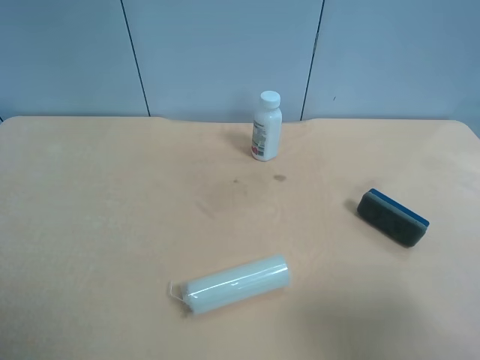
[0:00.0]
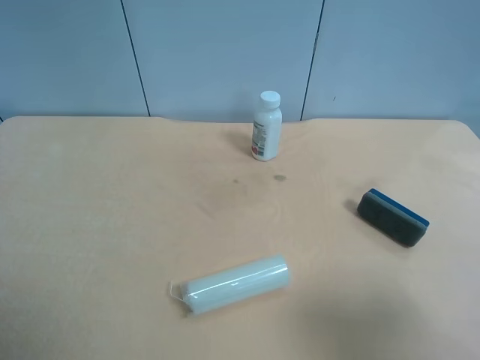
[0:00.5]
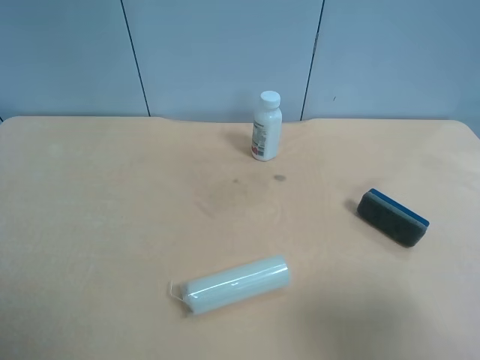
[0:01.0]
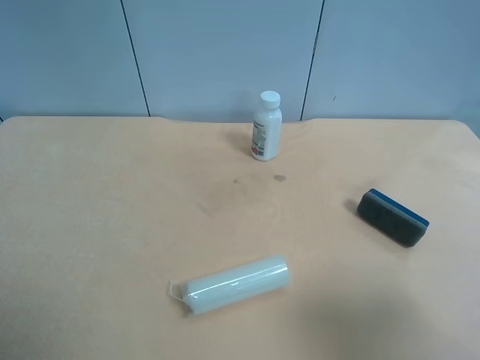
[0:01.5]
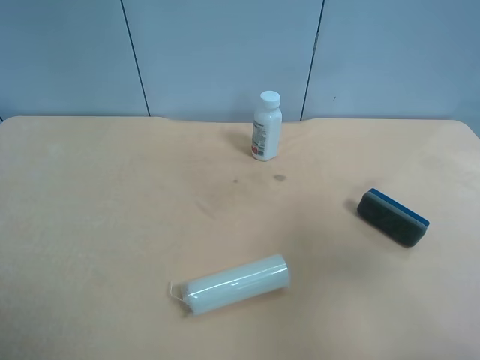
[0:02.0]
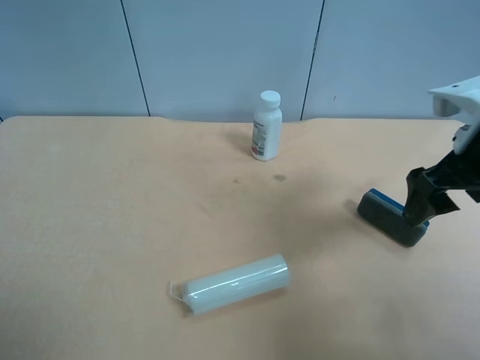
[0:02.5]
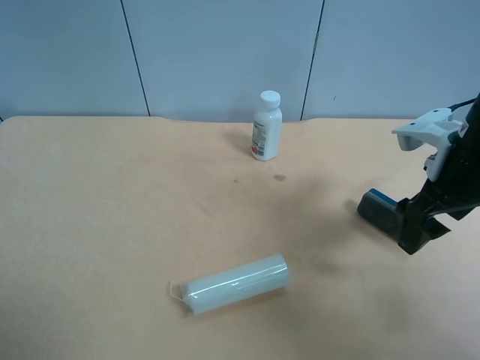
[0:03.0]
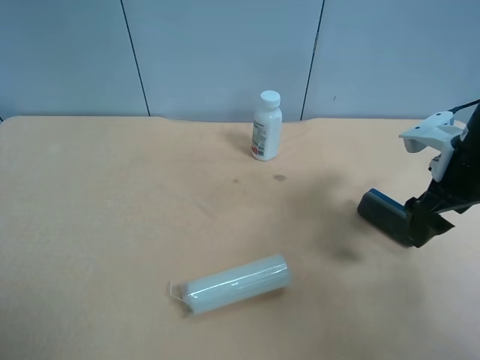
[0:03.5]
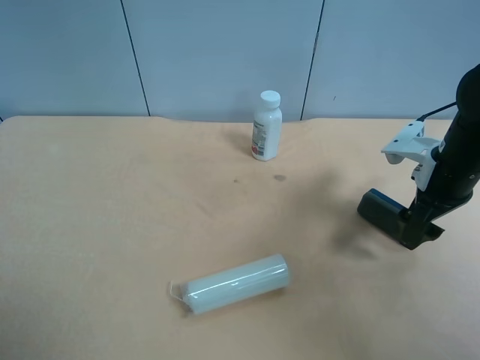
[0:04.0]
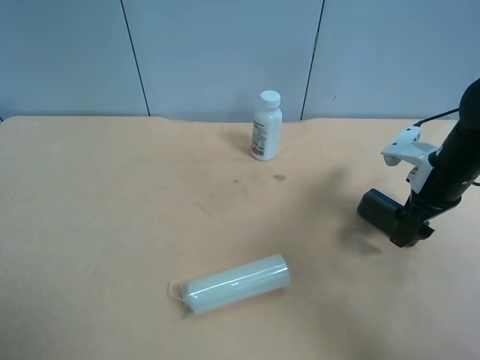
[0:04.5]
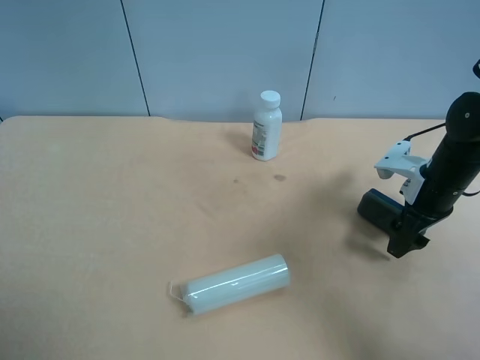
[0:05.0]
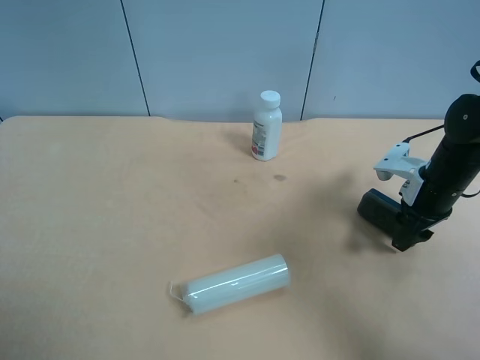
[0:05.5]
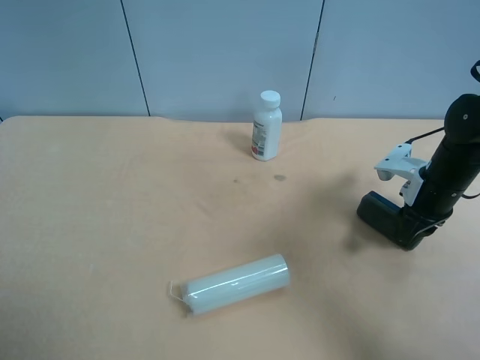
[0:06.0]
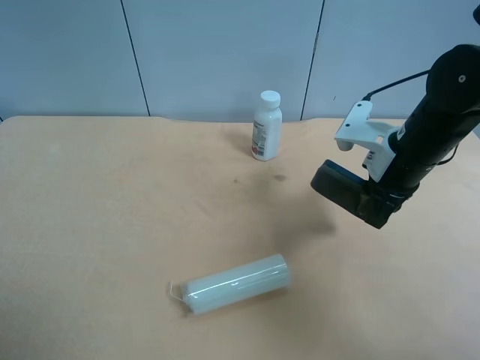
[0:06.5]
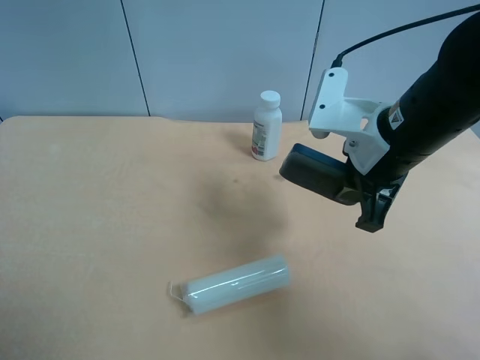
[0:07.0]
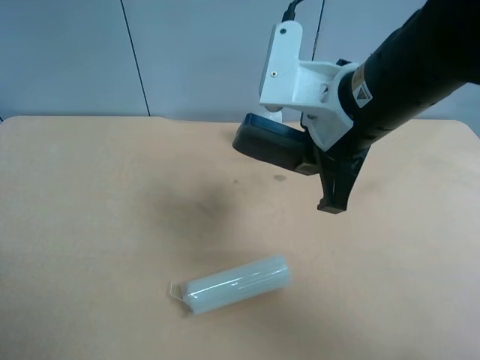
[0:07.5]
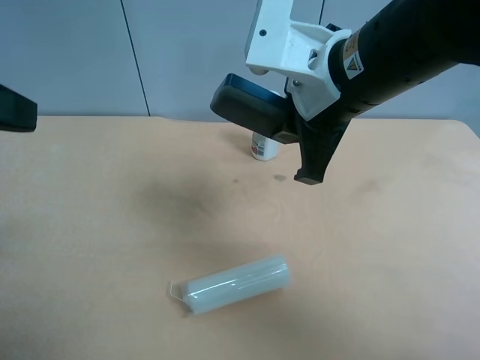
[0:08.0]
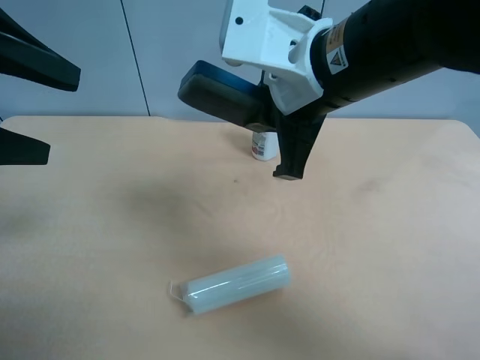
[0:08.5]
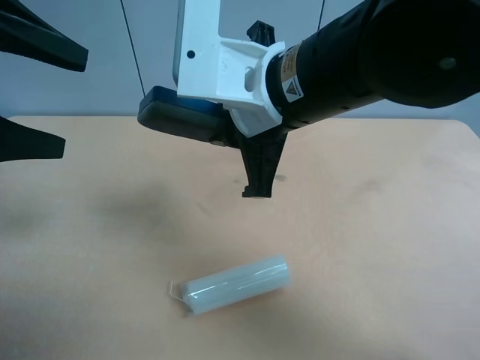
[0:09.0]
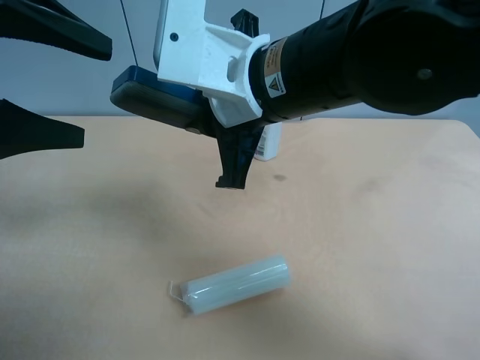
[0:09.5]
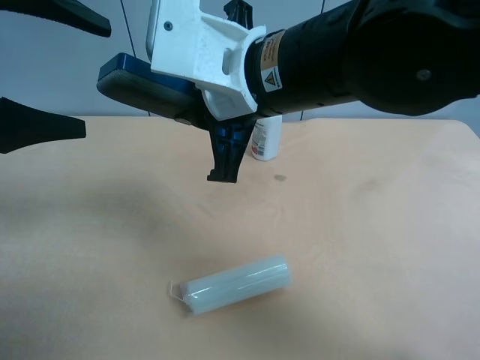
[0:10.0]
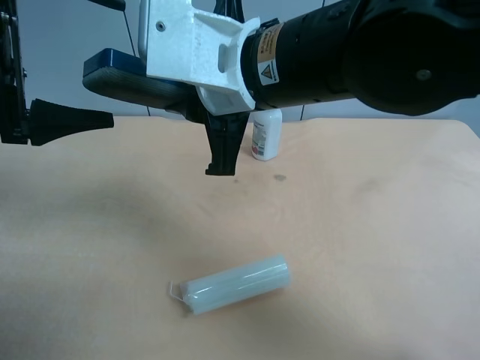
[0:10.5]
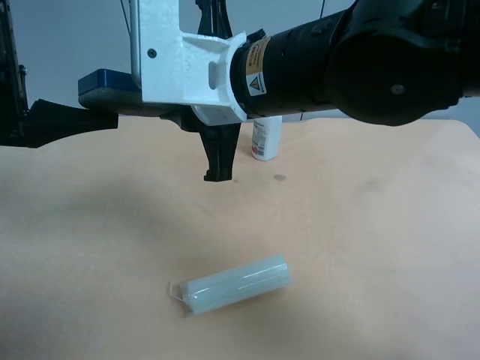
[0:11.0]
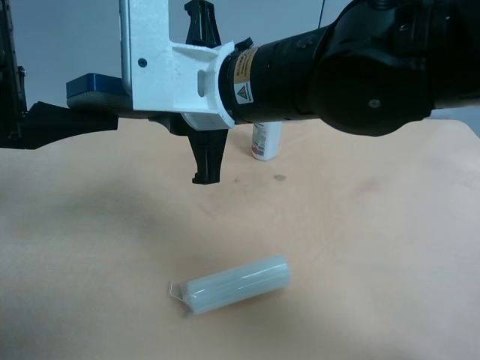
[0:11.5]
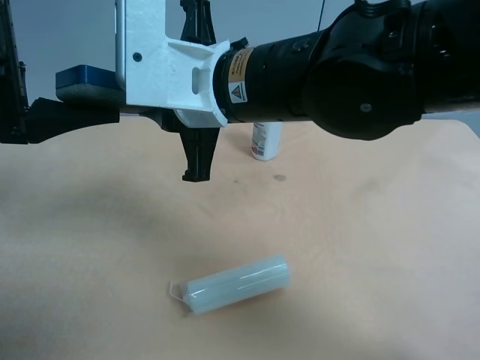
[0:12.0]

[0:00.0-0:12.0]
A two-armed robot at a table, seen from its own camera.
Task of the whole recording: use the right gripper to pick up the item and transfer it from the right gripper to the left gripper.
0:00.0 to 0:02.0: The right gripper is displaced forward by roughly 10 cm.
0:02.0 to 0:04.0: The right gripper goes approximately 25 cm downward and forward.
0:04.0 to 0:06.0: The right gripper ends up some 5 cm from where it was, and closes.
0:06.0 to 0:08.0: The left gripper is displaced forward and upward by about 15 cm, while the right gripper heads to the left and upward, covering about 25 cm.
0:08.0 to 0:10.0: The left gripper is displaced forward by approximately 5 cm. Meanwhile the right gripper travels to the left by roughly 5 cm.

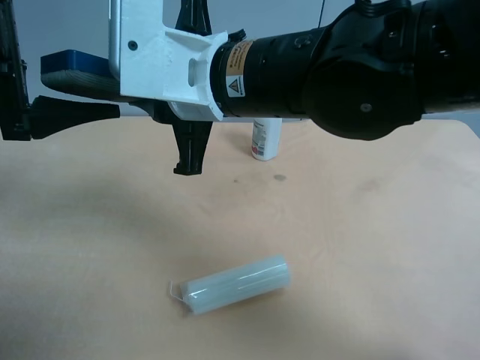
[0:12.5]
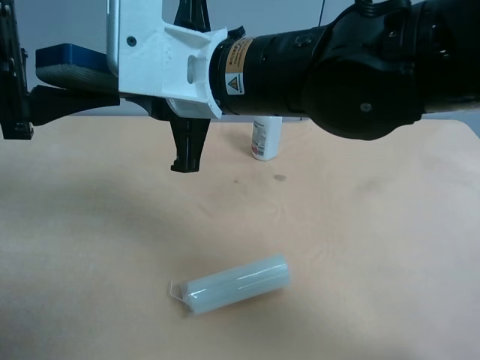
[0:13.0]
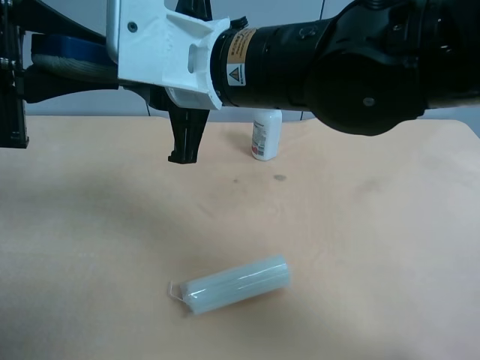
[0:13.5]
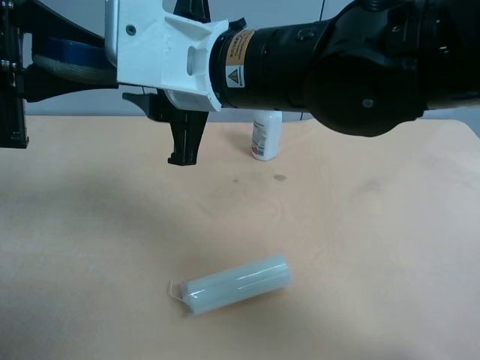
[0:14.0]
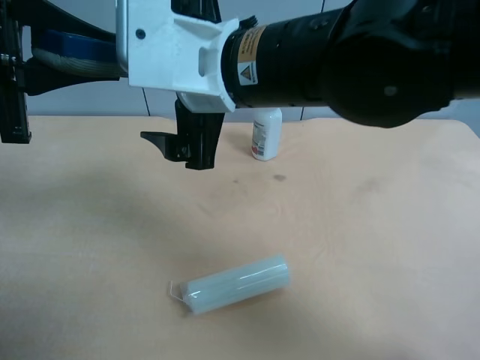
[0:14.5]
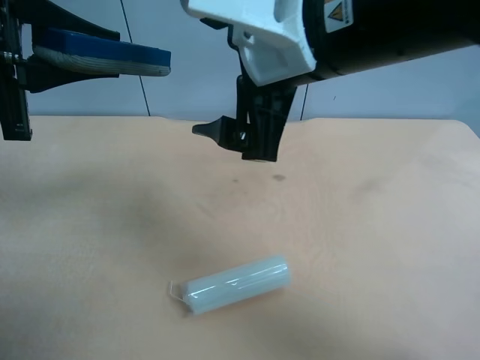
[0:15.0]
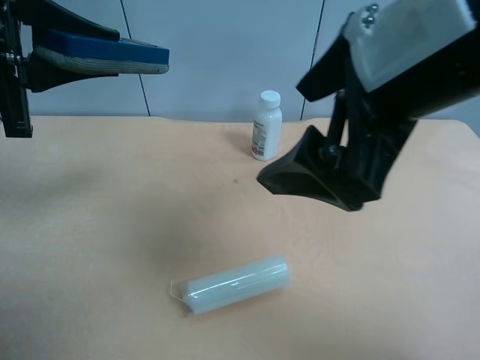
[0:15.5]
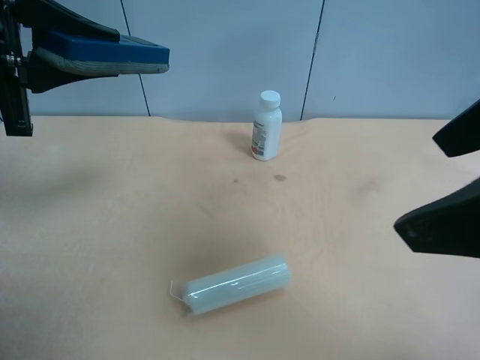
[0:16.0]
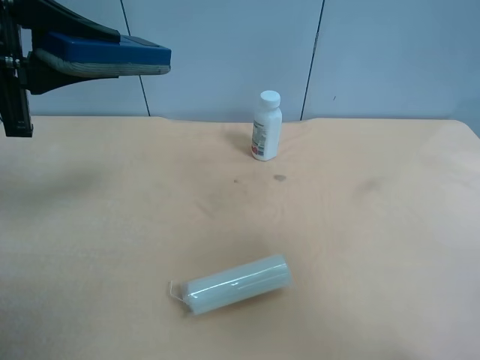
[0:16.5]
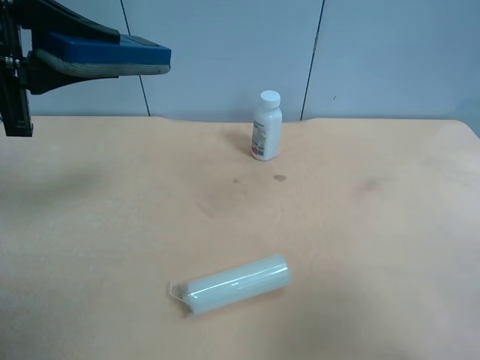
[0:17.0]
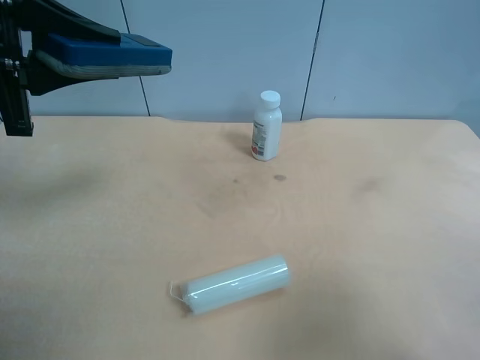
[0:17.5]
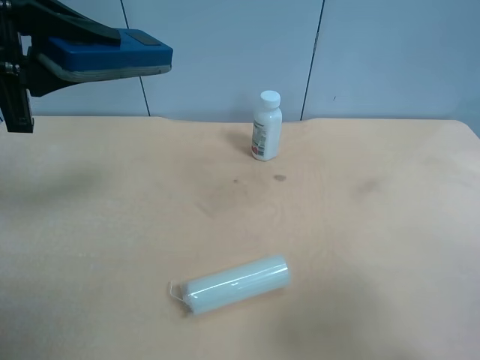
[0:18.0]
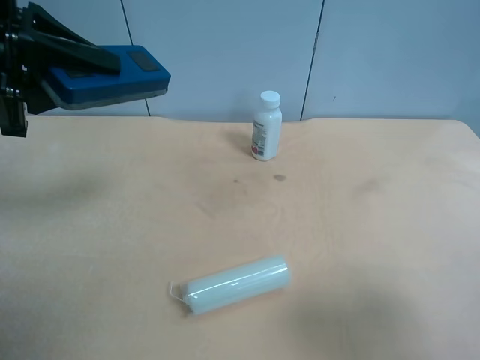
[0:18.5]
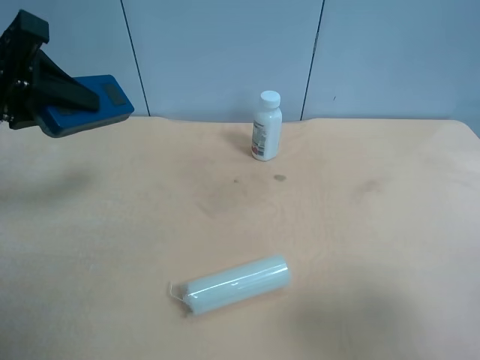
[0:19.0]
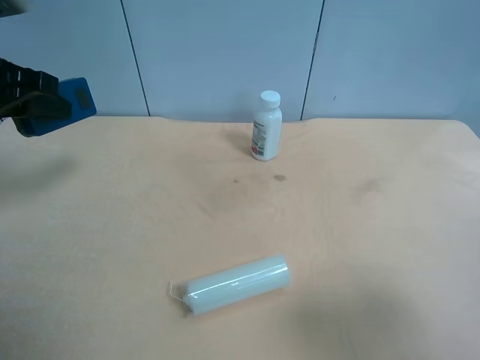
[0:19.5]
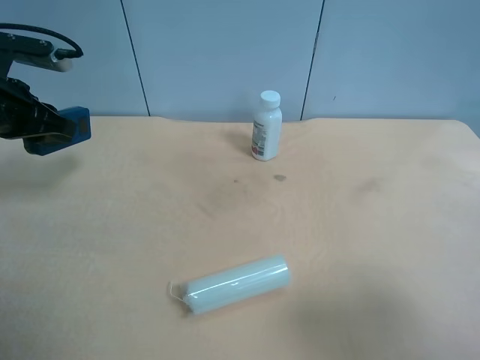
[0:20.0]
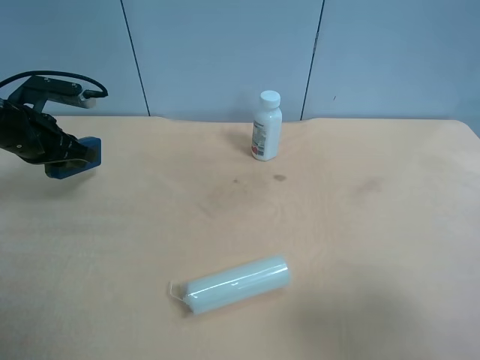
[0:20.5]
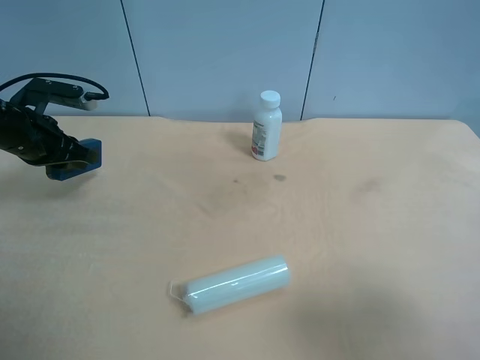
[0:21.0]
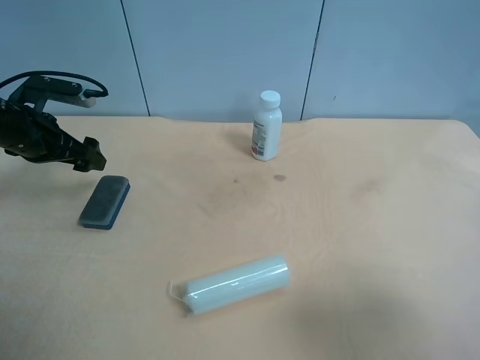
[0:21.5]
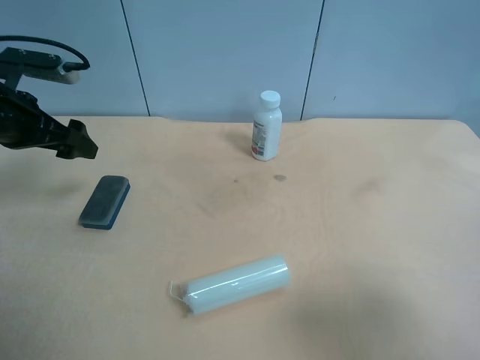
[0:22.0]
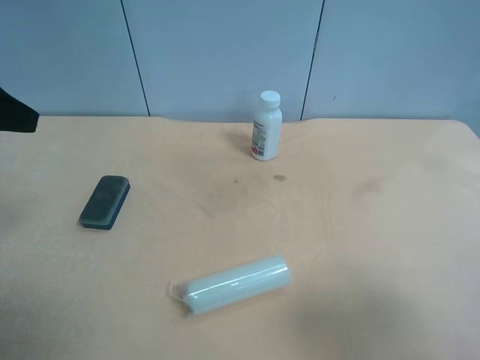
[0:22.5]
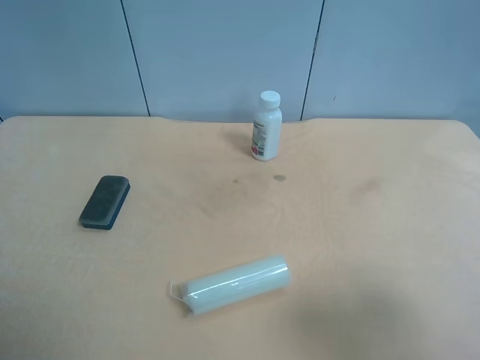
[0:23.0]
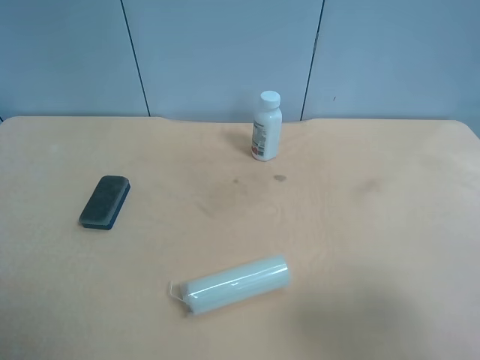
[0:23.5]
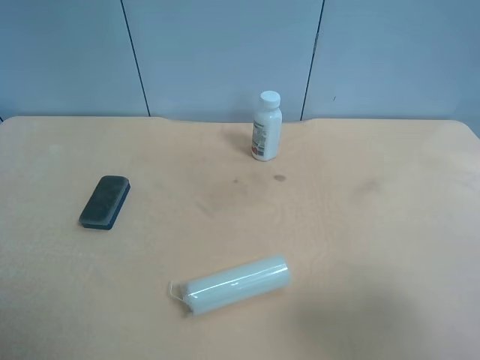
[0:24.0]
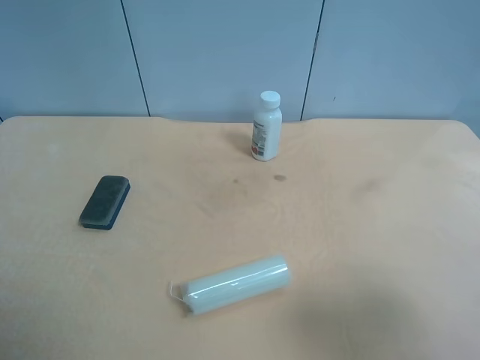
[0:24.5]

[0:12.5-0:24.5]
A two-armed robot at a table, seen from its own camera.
Task of the whole recording: use the right gripper to pick up the item and transfer it from the right gripper to the left gripper.
0:12.5 to 0:14.5: The right gripper opens. The left gripper closes up.
0:14.5 to 0:16.5: The right gripper shifts some 30 cm to the right and backward.
0:16.5 to 0:18.5: The right gripper shifts approximately 10 cm downward.
0:18.5 to 0:20.5: The left gripper is displaced downward, forward and to the left by approximately 20 cm.
0:20.5 to 0:22.5: The left gripper travels upward and backward by approximately 20 cm, and opens its fingers.
0:22.5 to 0:24.5: The left gripper moves backward, about 20 cm.
